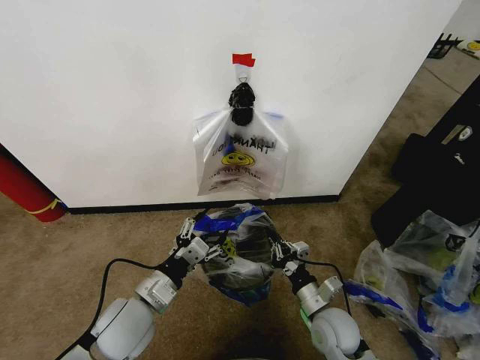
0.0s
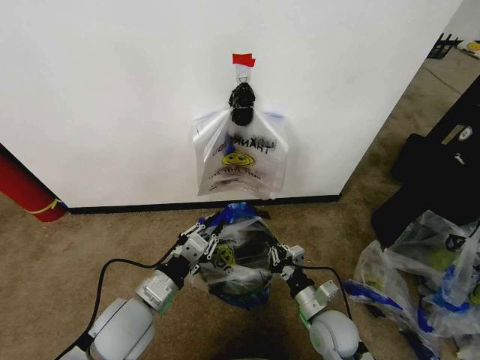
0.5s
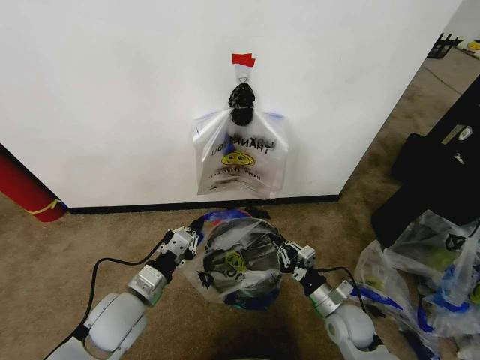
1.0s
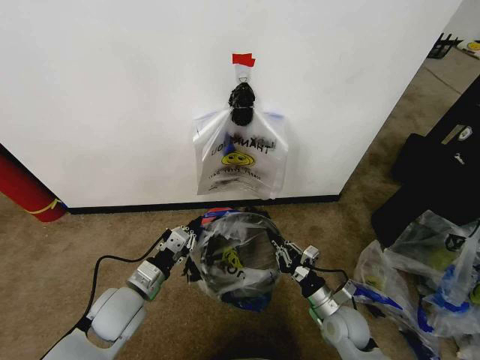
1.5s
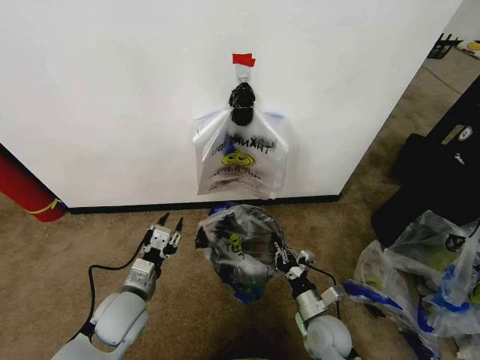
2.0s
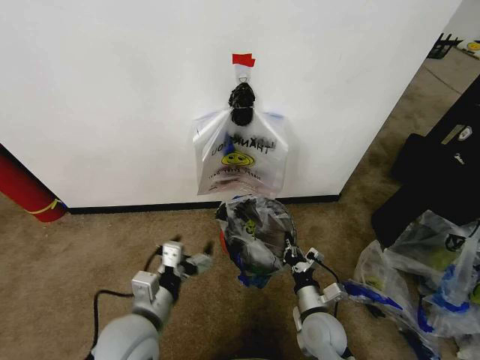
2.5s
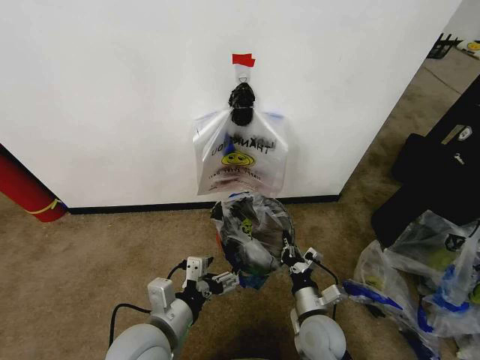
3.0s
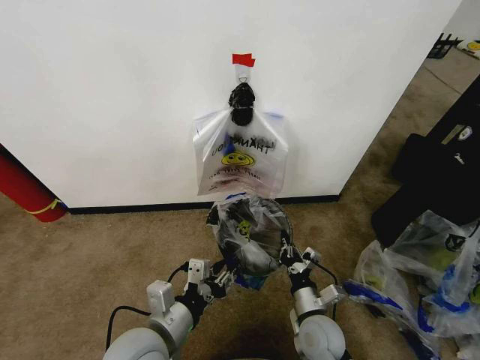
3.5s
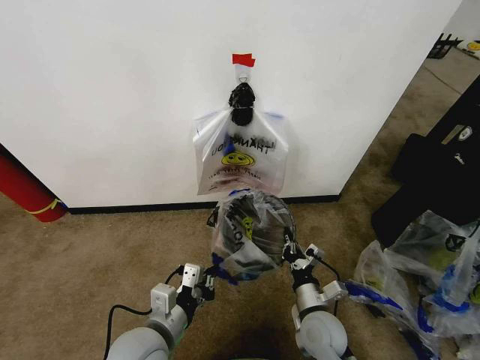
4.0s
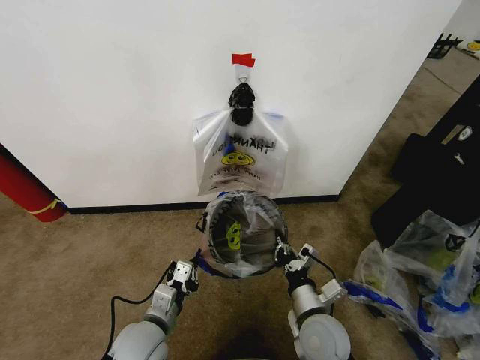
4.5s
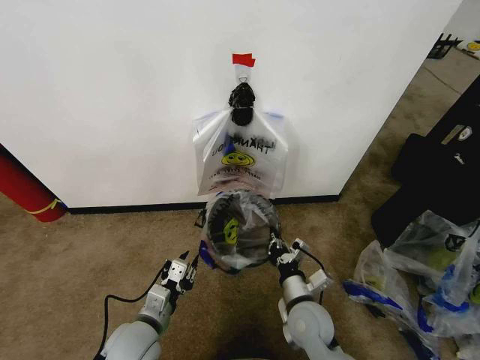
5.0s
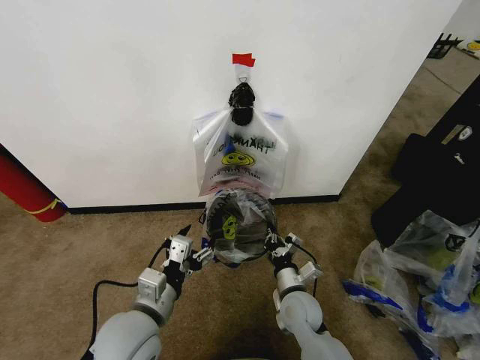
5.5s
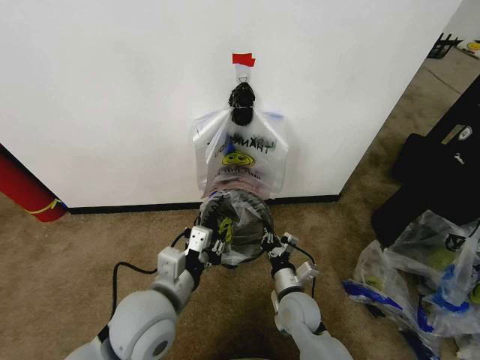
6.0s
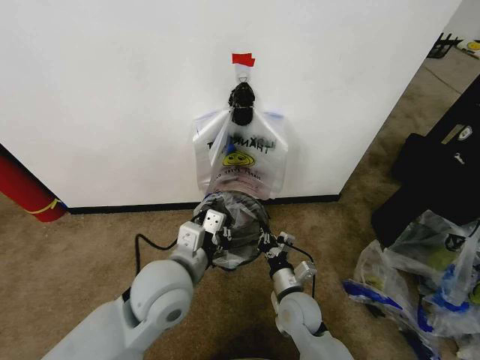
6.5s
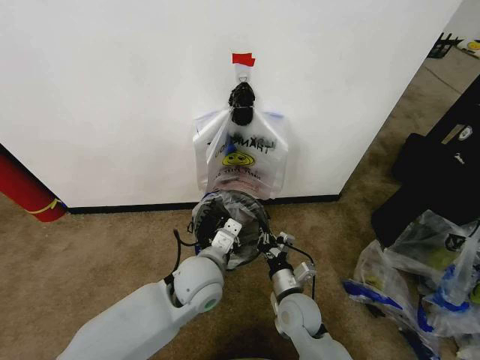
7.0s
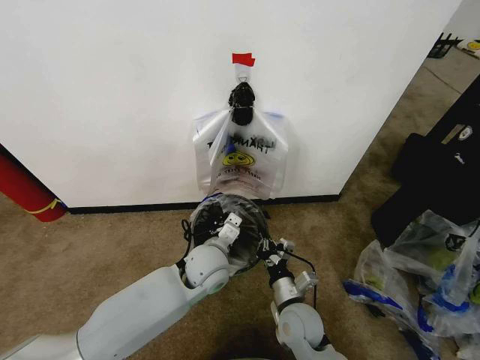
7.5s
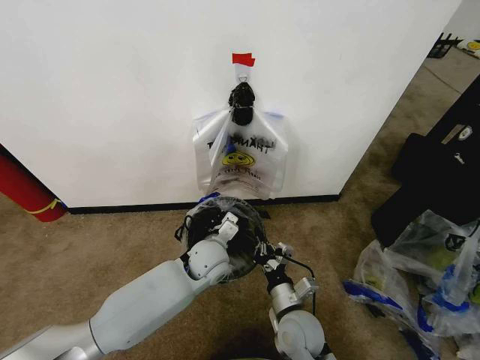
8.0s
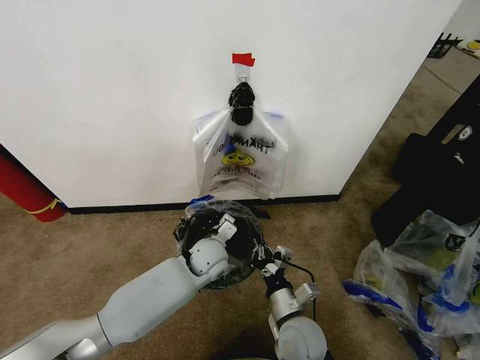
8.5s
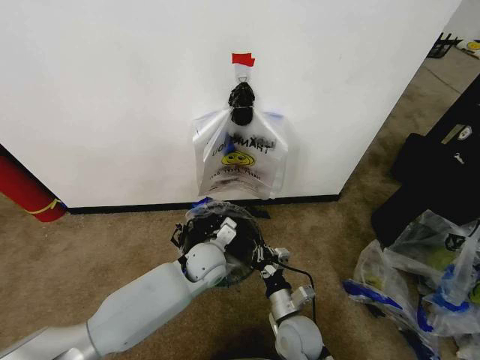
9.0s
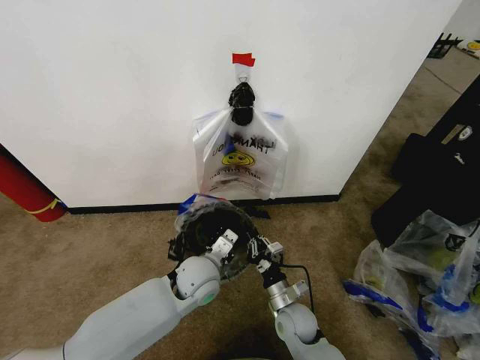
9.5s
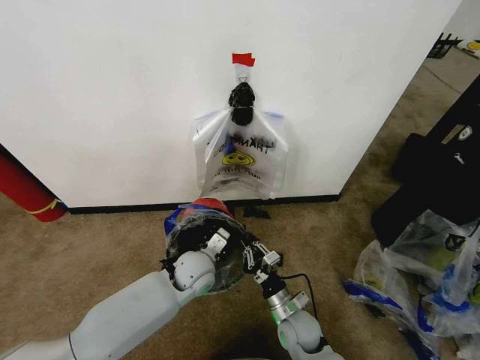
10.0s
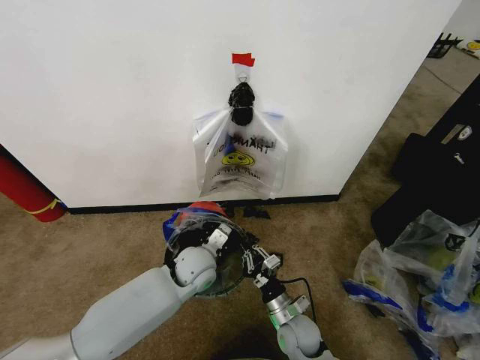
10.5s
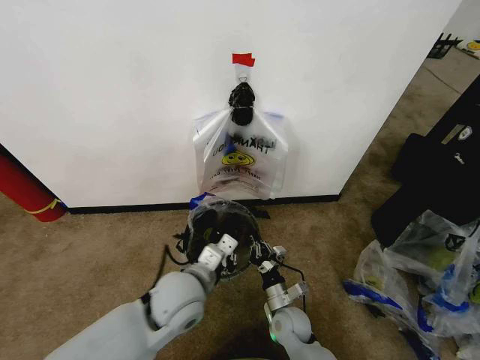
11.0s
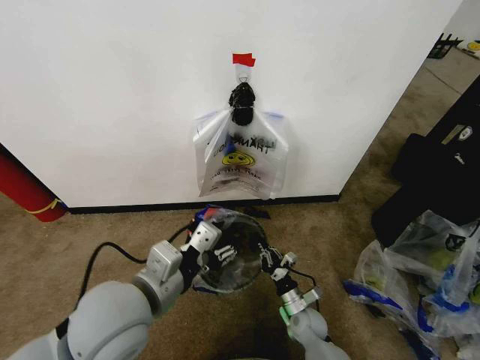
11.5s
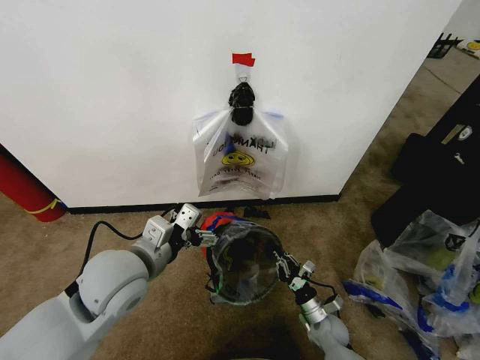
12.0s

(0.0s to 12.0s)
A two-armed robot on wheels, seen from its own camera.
Task of the whole recording: Pick up the garbage bag from the wall and place it over the trash bin.
0.0s - 2.0s: The left gripper moves roughly 5 cm, and closes, then reopens.
2.0s - 4.0s: The right gripper shifts by about 5 cm. Meanwhile the left gripper heads backward and to the right, covering roughly 10 cm, and closes its fingers.
4.0s - 6.0s: The left gripper goes about 5 cm upward, and opens, then closes once more. The right gripper shifts by some 5 cm.
6.0s - 8.0s: The right gripper moves roughly 5 cm. The left gripper is displaced forward, downward and to the right by approximately 20 cm.
8.0s - 10.0s: The right gripper travels downward by some 5 cm.
10.0s - 12.0s: The left gripper goes roughly 20 cm upward, backward and to the left, and opens up. The right gripper moves to the right and downward, some 15 cm.

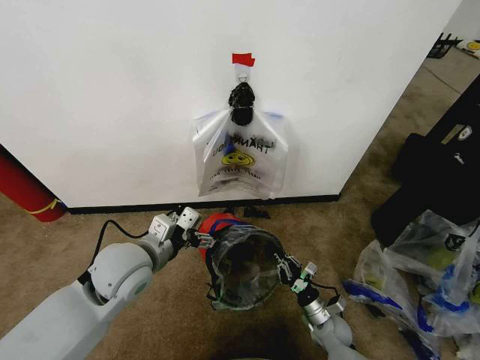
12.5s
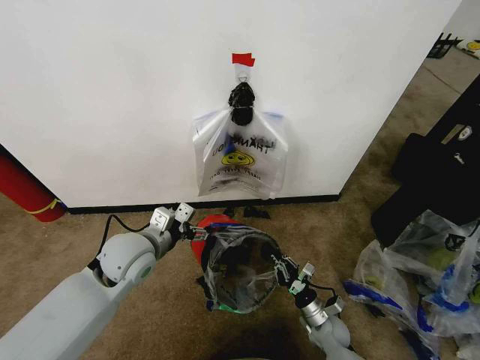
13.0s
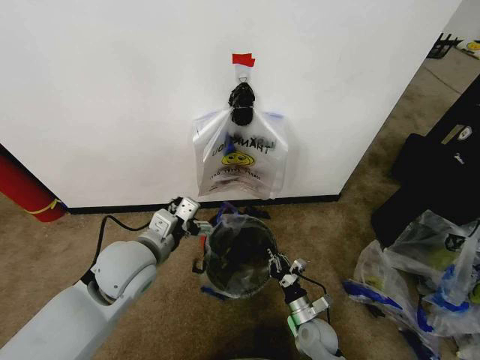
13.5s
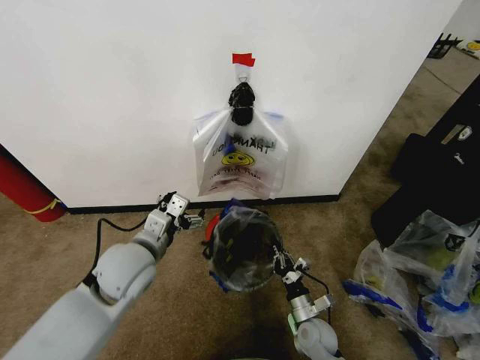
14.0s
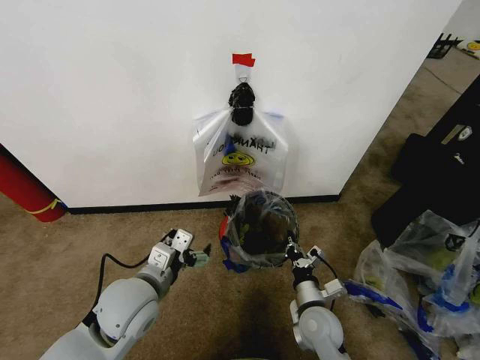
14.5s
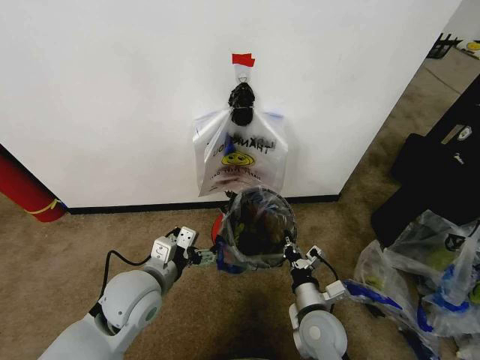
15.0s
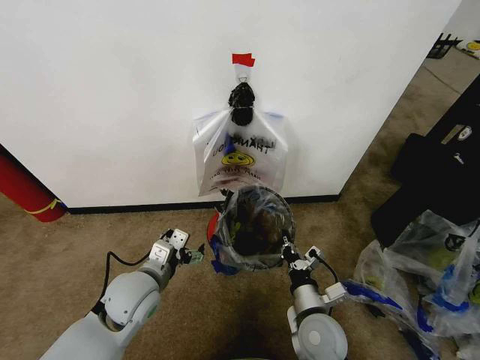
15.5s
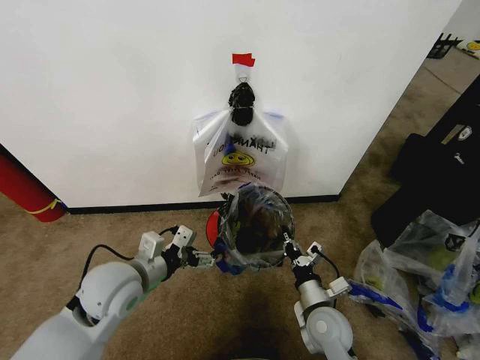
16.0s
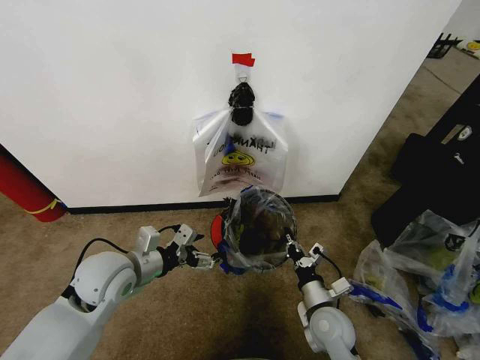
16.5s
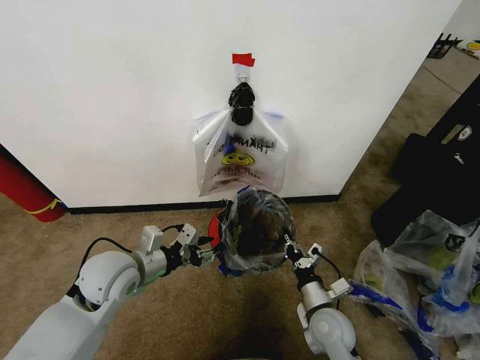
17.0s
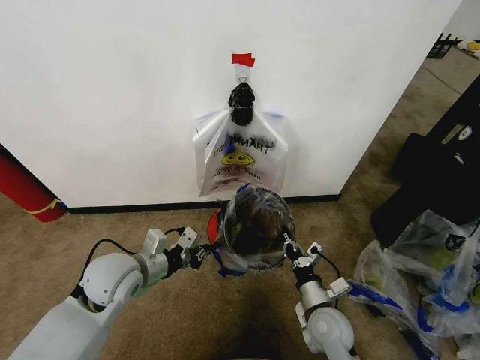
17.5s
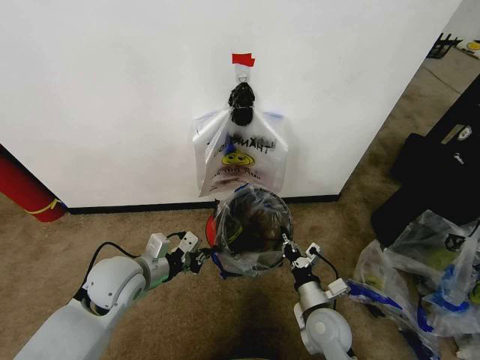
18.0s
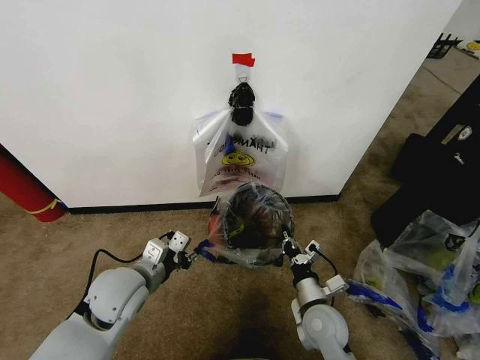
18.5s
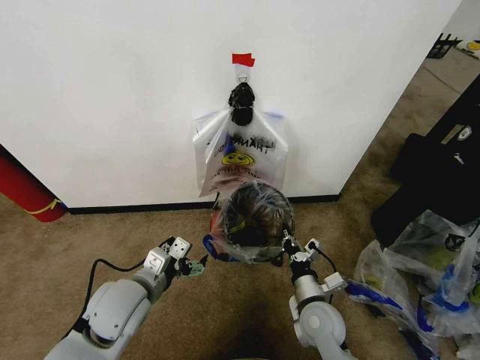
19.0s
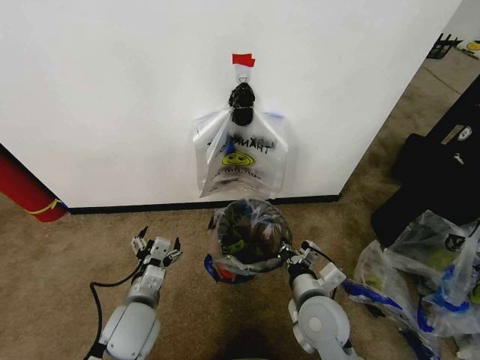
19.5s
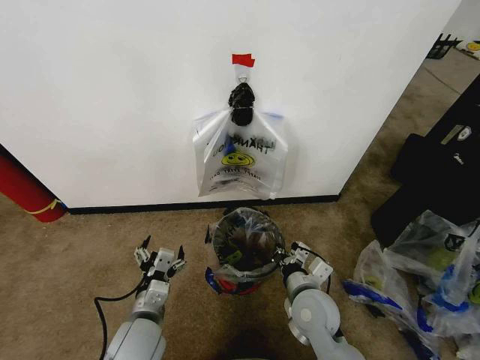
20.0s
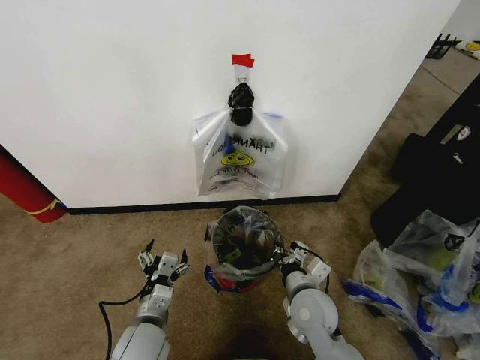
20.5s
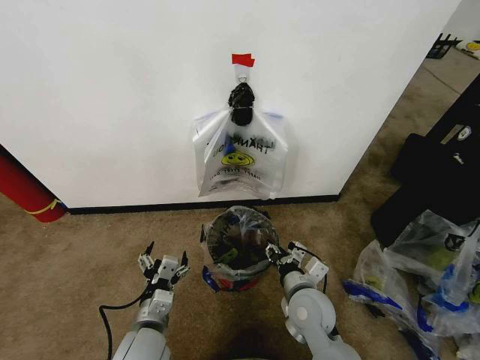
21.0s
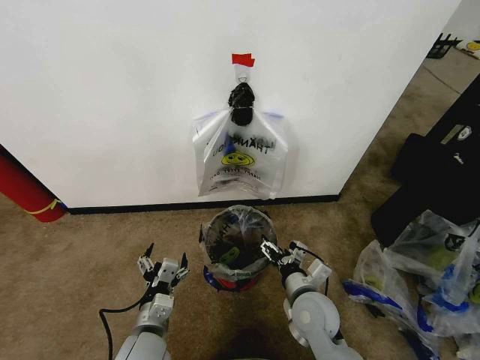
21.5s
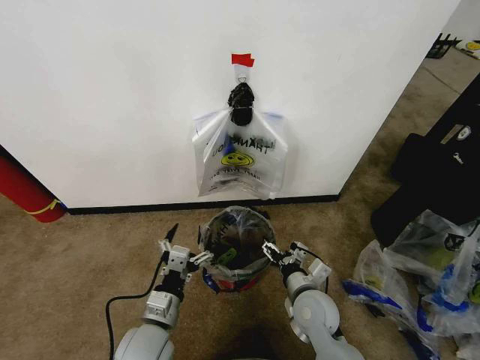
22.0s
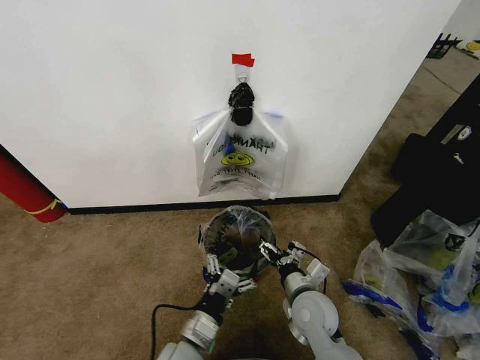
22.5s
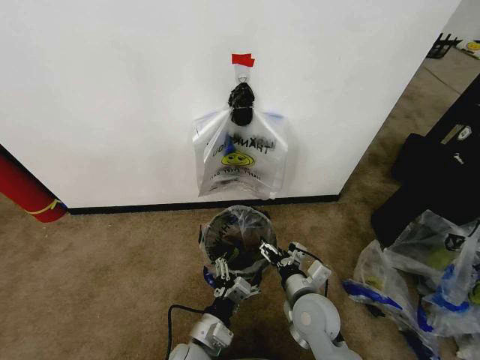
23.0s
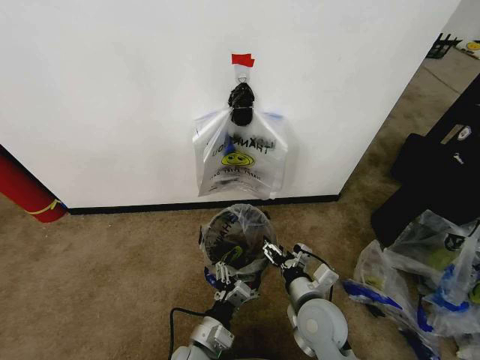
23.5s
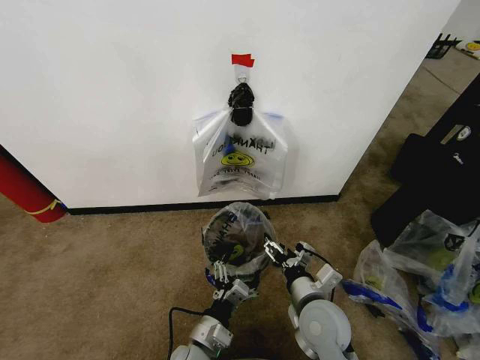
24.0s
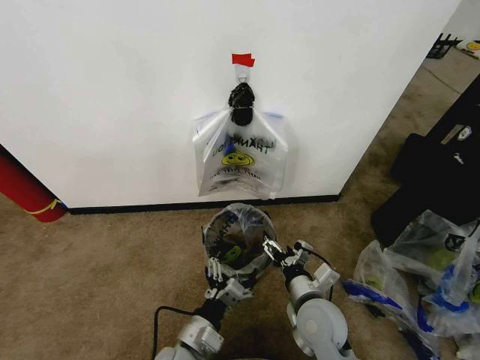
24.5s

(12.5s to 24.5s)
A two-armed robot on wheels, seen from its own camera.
Task of the whole recording: Pick up the garbage bag from the wall and place it over the trash bin.
12.5s - 14.5s: The right gripper travels upward and to the left by roughly 15 cm. The left gripper moves approximately 5 cm.
14.5s - 16.5s: The left gripper travels to the left by about 5 cm.
16.5s - 18.5s: The left gripper closes.
18.5s - 20.5s: The right gripper shifts roughly 5 cm upward. Meanwhile the left gripper goes some 10 cm downward and backward, and opens its fingers.
20.5s - 22.5s: The left gripper goes roughly 5 cm to the right. Meanwhile the right gripper opens up.
22.5s - 24.5s: The grippers make only small movements.

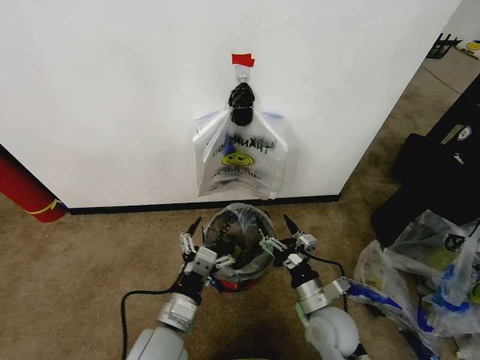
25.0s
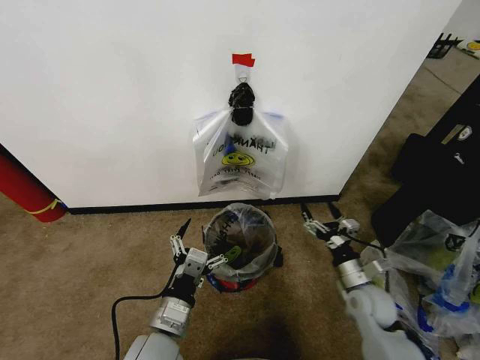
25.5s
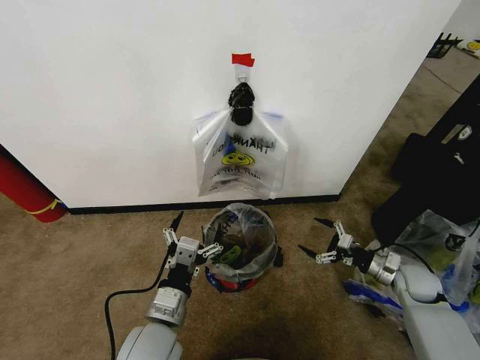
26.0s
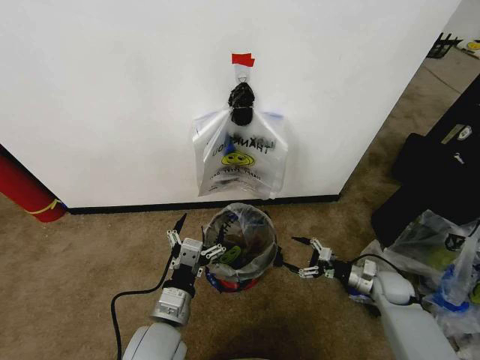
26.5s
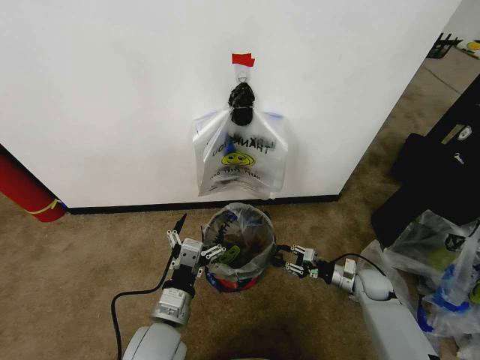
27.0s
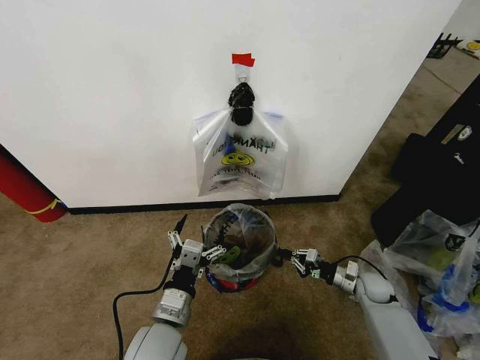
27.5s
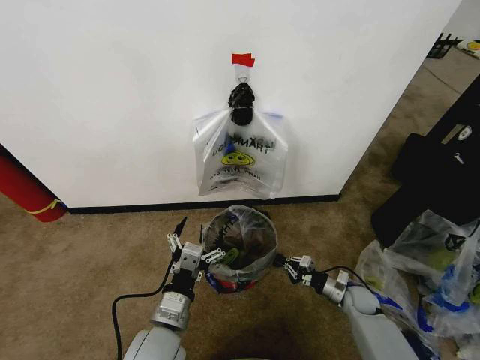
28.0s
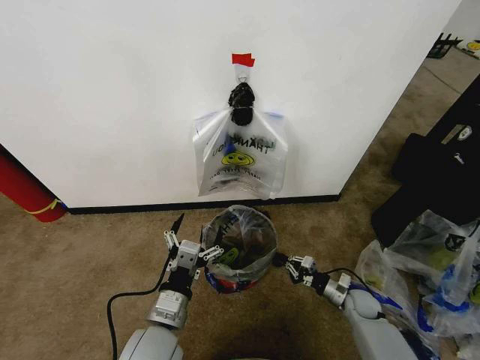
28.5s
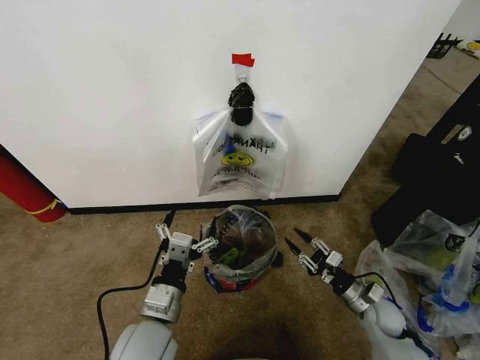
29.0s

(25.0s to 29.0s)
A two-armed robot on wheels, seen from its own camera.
Task of the whole recording: Pick up the garbage bag from the wall and place it over the trash bin.
25.0s - 27.0s: The right gripper goes about 25 cm to the right, forward and downward, and closes its fingers.
27.0s - 29.0s: The right gripper is displaced backward by approximately 10 cm, and closes, then opens again.
